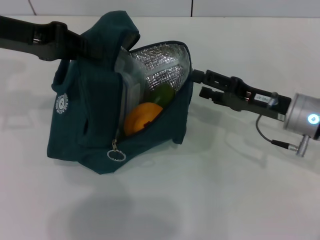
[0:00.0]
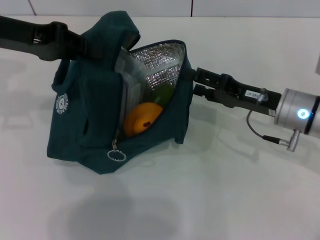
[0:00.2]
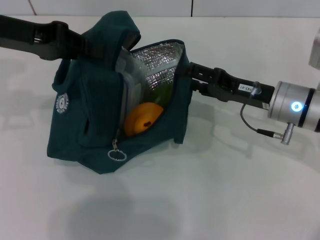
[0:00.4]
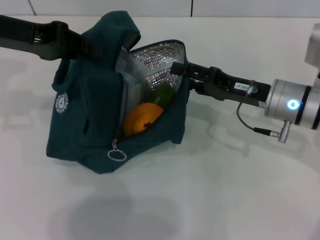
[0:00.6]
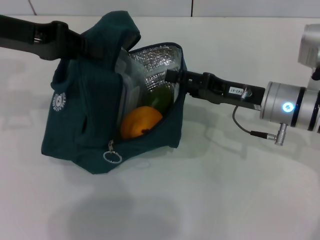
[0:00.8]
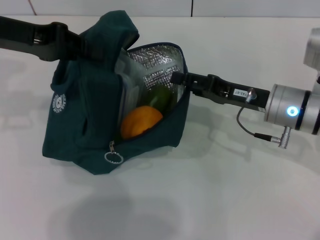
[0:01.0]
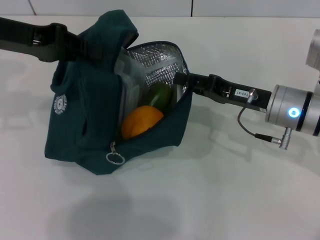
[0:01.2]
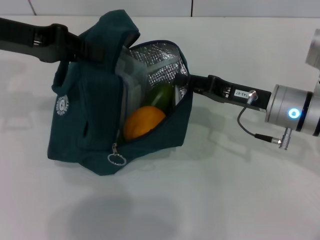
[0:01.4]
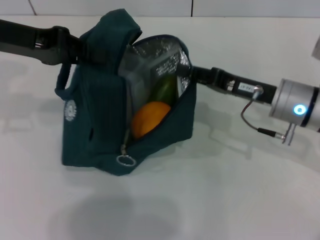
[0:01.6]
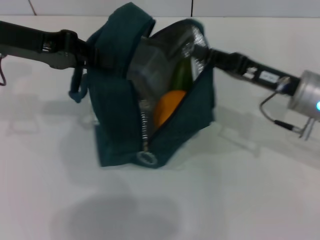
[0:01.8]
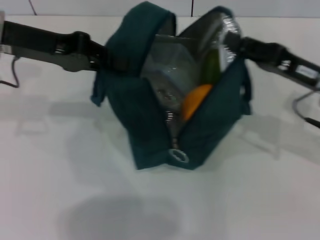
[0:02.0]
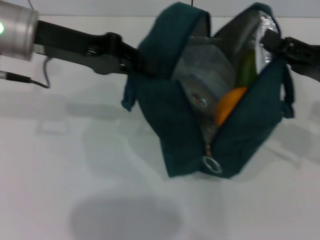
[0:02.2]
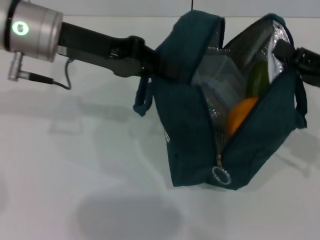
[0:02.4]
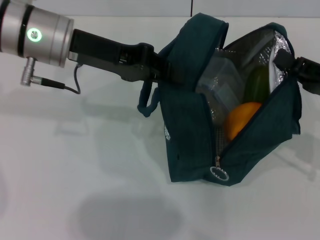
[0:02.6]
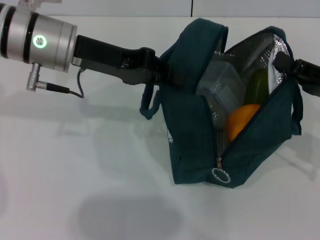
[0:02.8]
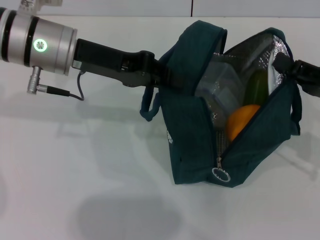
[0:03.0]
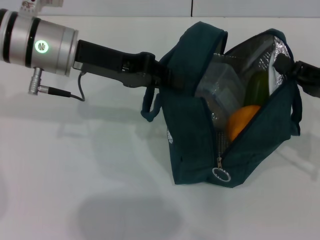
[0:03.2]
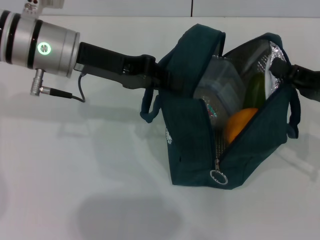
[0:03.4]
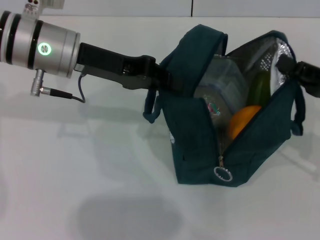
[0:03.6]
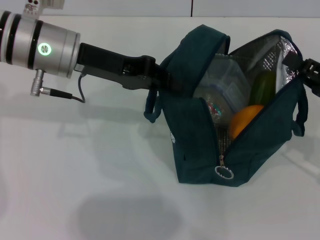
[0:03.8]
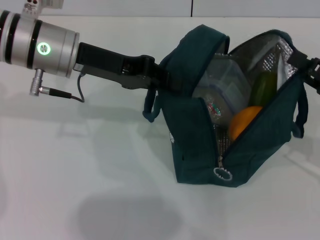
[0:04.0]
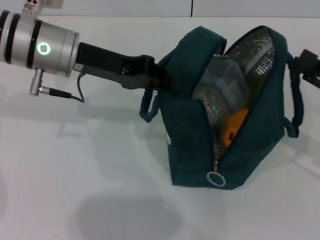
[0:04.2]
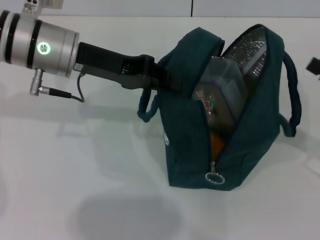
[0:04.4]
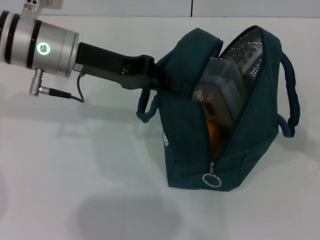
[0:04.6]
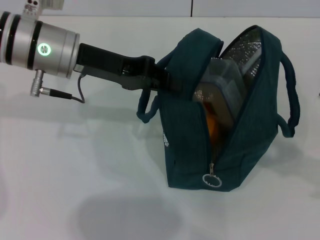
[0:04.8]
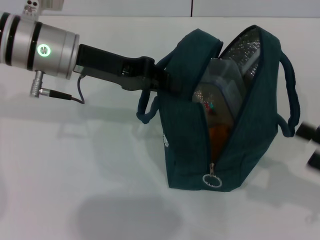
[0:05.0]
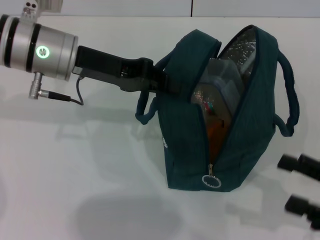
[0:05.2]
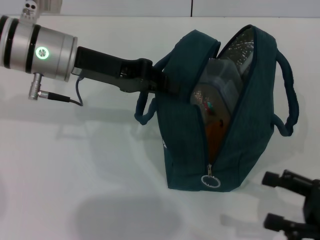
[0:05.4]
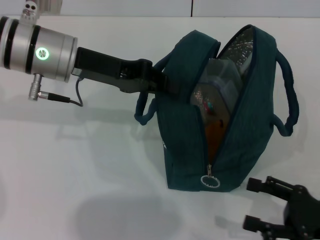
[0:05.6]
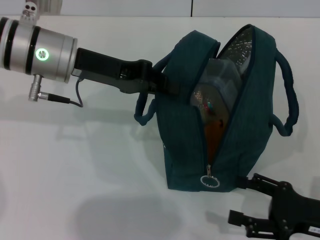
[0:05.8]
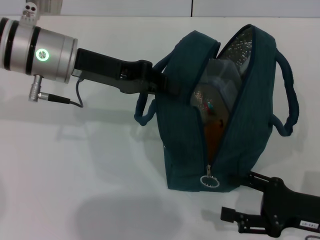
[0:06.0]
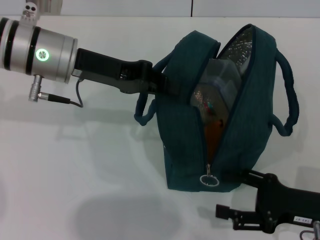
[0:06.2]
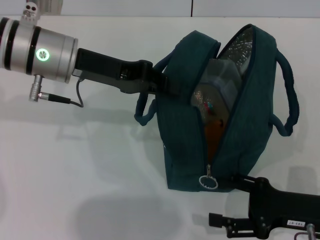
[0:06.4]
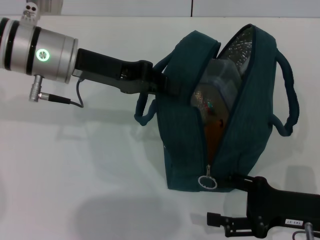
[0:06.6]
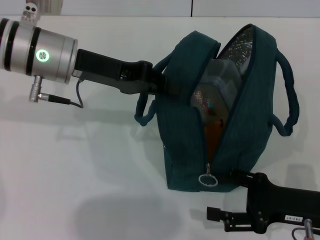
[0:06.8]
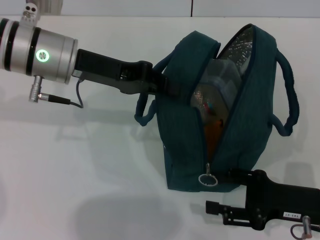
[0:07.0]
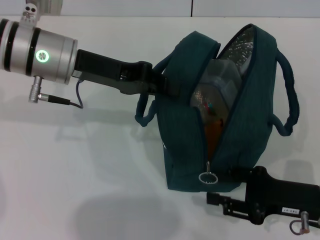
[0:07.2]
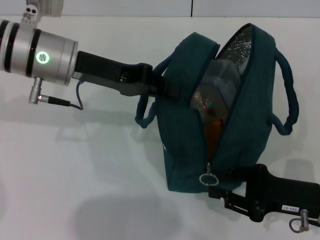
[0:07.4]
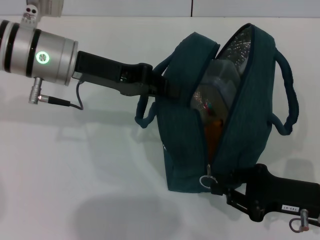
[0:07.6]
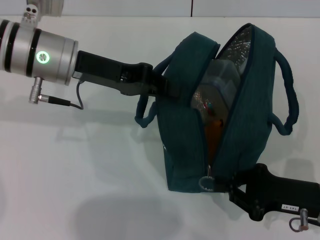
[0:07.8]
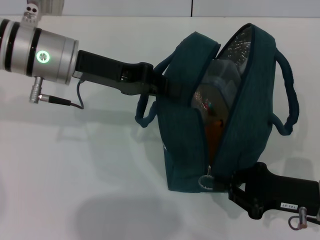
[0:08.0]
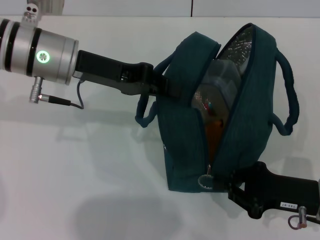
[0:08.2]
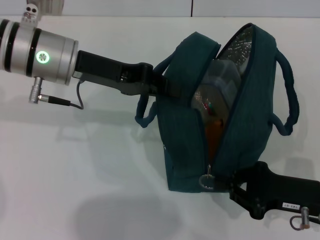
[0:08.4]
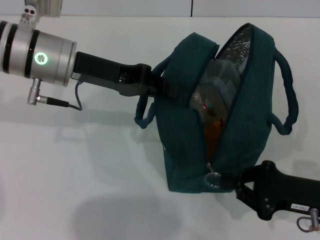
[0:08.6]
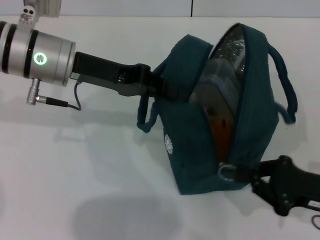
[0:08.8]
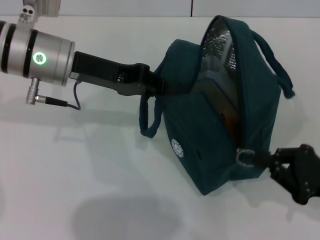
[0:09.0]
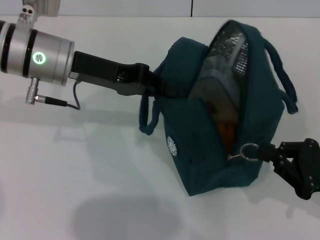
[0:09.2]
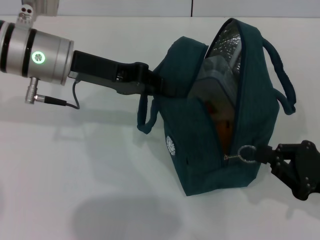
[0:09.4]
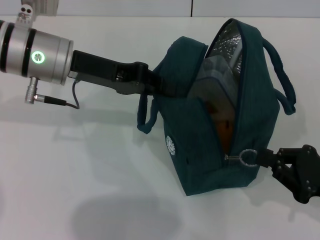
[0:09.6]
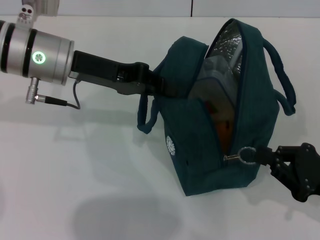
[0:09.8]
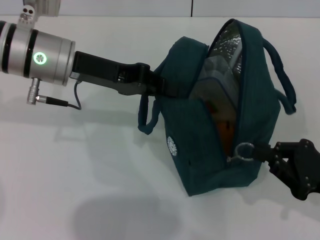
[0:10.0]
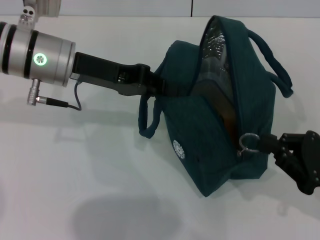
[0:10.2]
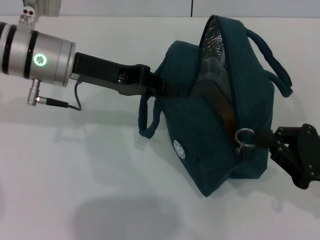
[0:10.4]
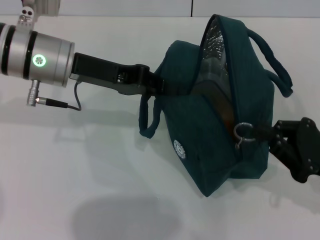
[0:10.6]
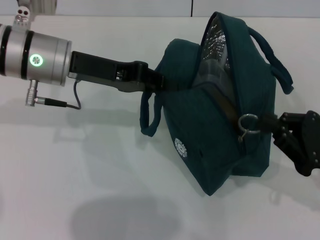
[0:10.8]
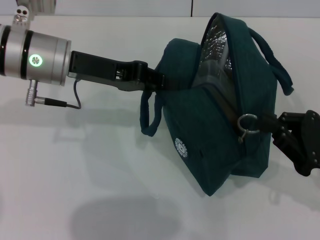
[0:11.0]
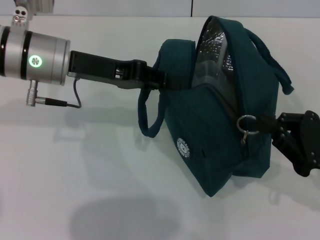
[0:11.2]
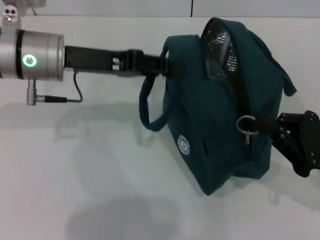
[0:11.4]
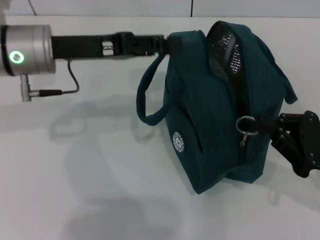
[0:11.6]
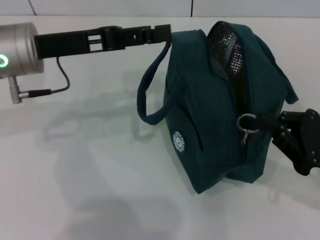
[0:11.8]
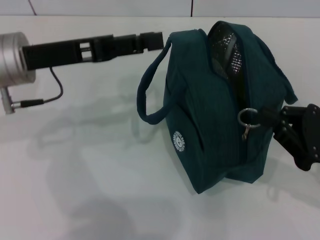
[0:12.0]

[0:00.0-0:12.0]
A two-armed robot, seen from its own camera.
Step, 0:00.0 to 0:04.0: Hold the lunch bag with your right hand.
0:00.0 to 0:01.6: The right gripper closes its fingers.
0:01.6 to 0:03.0: Both grippers move to the right, roughly 10 cm.
0:03.0 to 0:04.4: The right gripper changes place by roughly 5 cm, and opens its fingers.
0:04.4 to 0:06.0: The right gripper shifts about 10 cm downward, to the left and backward.
0:06.0 to 0:07.6: The right gripper closes up.
0:07.6 to 0:09.0: The right gripper changes place by some 5 cm.
0:09.0 to 0:10.4: The grippers make only small movements.
0:10.4 to 0:12.0: The left gripper changes place by about 5 cm, and opens.

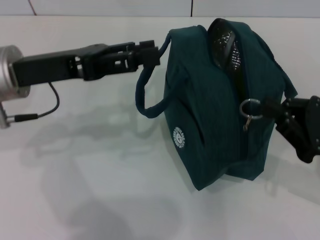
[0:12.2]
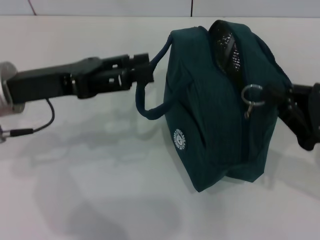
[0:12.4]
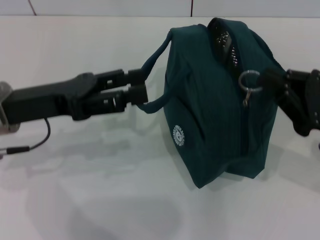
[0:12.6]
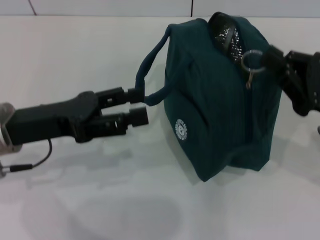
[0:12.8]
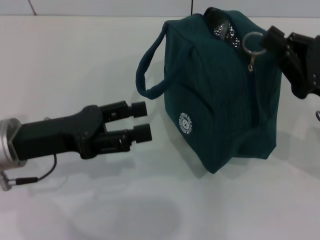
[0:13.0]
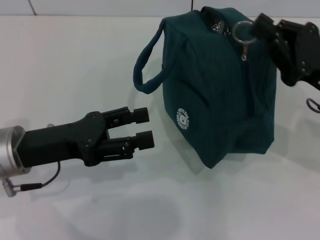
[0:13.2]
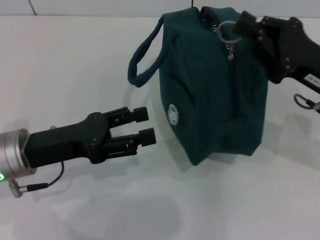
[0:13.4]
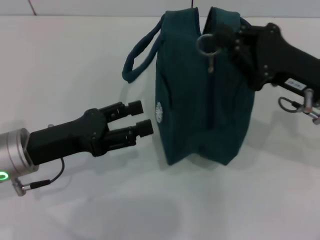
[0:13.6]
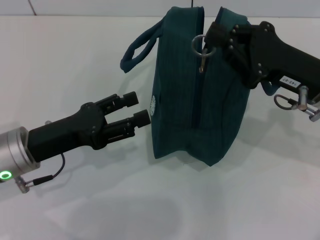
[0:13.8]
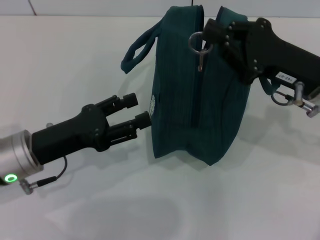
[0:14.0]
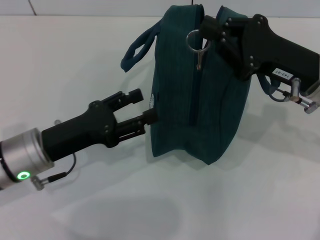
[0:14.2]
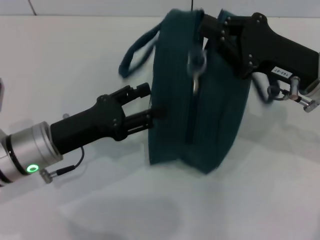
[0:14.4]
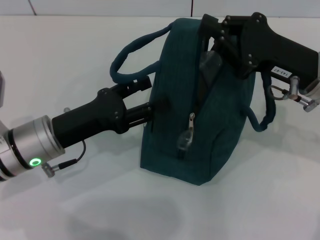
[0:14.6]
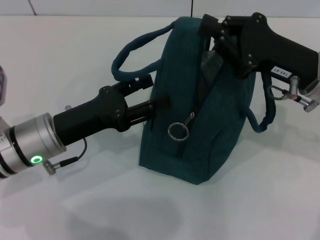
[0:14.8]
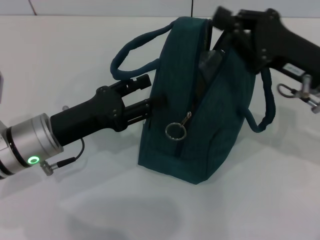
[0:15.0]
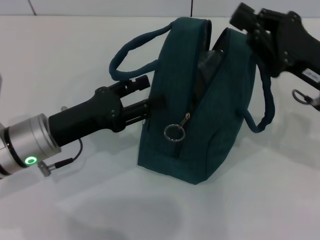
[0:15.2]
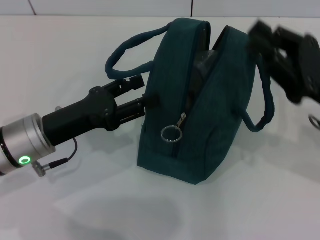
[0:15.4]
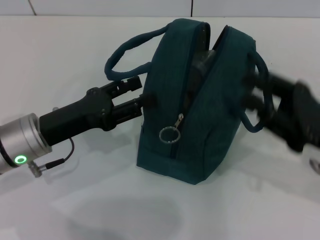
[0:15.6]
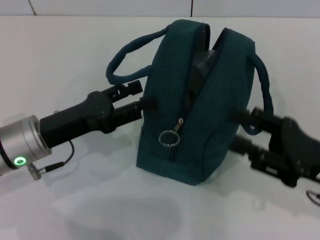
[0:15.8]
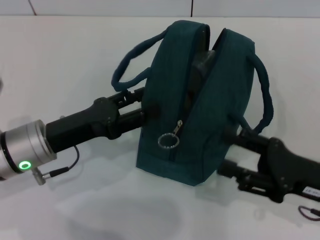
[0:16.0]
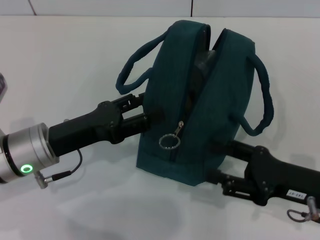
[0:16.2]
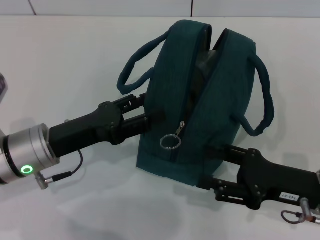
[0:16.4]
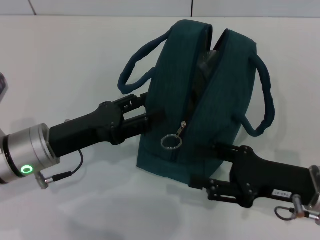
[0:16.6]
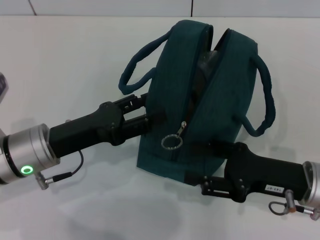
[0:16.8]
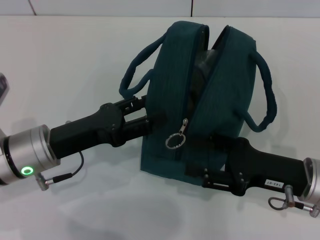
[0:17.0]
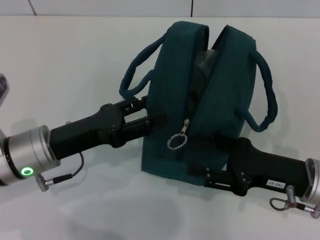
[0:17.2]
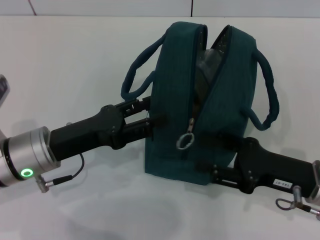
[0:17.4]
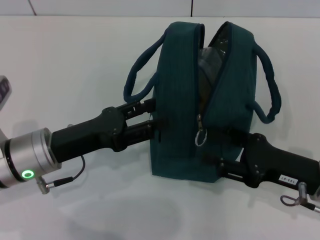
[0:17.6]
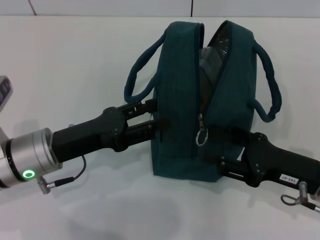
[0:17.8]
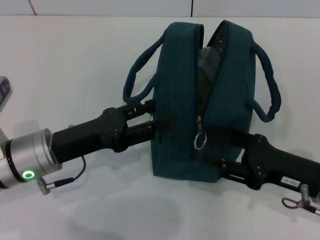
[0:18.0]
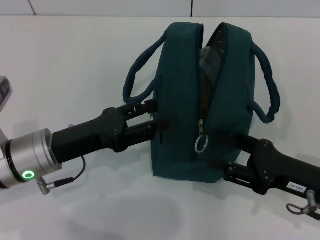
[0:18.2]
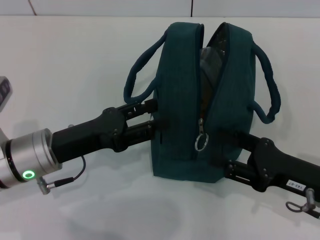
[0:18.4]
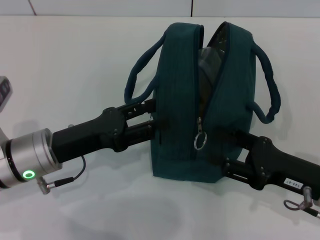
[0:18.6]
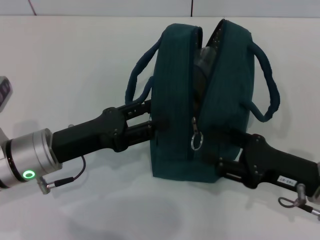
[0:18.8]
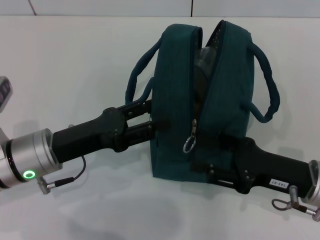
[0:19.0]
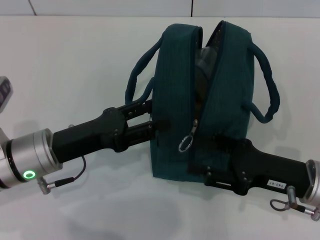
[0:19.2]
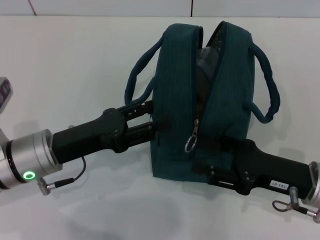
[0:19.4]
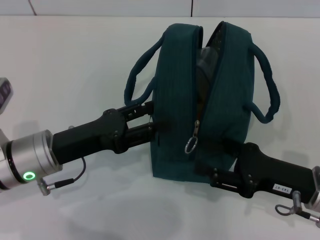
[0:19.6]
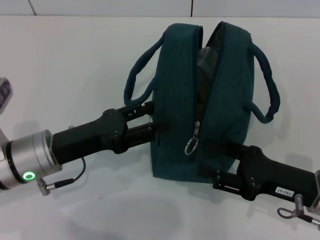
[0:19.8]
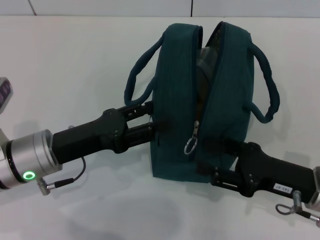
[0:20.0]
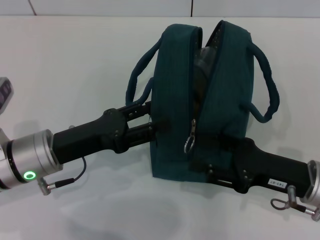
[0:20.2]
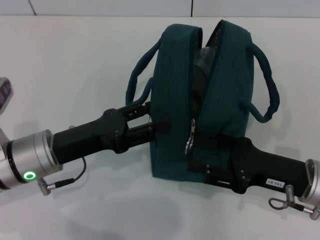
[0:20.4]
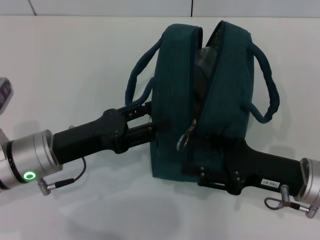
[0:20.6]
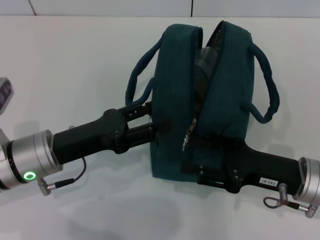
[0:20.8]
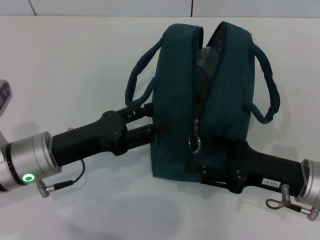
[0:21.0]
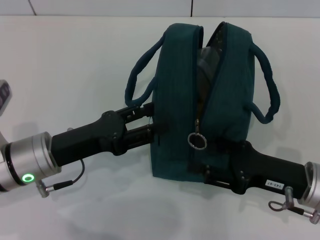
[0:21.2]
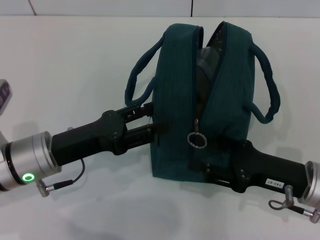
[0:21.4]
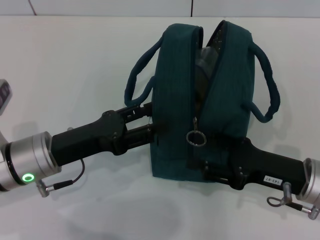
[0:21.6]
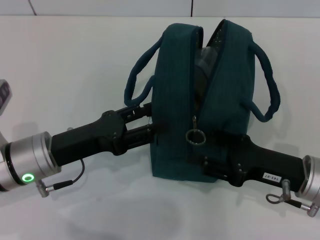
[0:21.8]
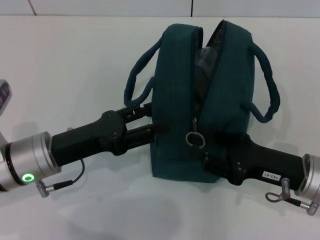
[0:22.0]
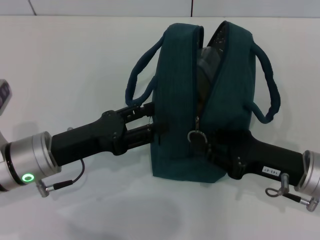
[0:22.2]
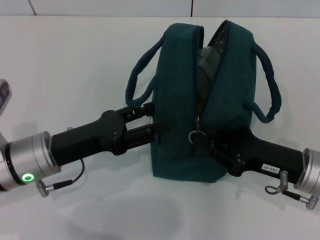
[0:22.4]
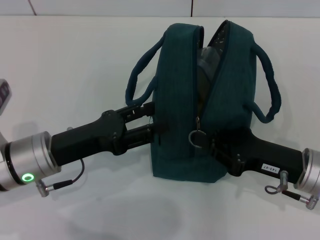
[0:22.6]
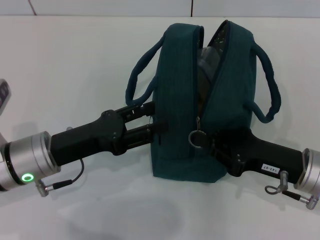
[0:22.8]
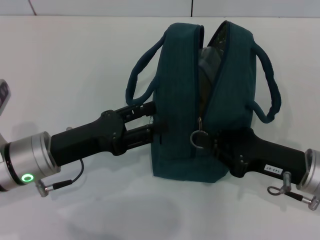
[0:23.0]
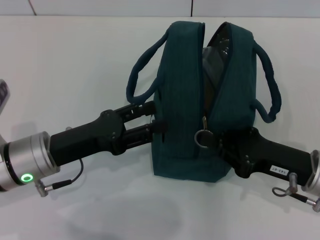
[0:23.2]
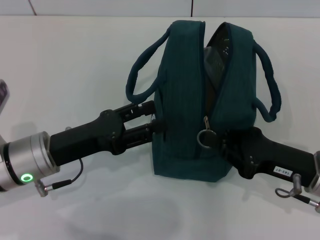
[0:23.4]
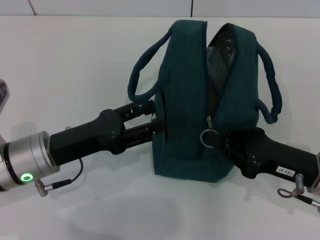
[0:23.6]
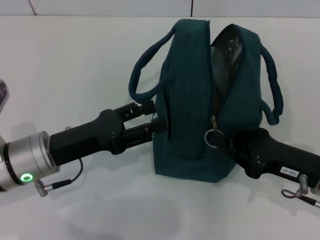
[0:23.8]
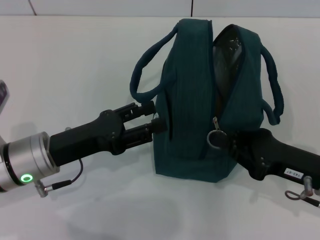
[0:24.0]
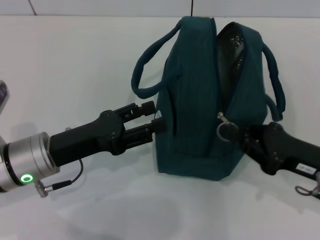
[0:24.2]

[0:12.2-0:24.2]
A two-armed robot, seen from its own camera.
0:12.2 to 0:13.8: The right gripper shifts about 10 cm forward and to the left, while the left gripper moves downward and backward, approximately 10 cm.
0:15.2 to 0:16.6: The right gripper is displaced downward and backward by some 10 cm, and opens its fingers.
0:16.6 to 0:21.2: The grippers move only a little.
0:21.2 to 0:22.6: The right gripper closes its fingers.
0:22.6 to 0:24.2: The grippers stay close to where they were, moving slightly.
